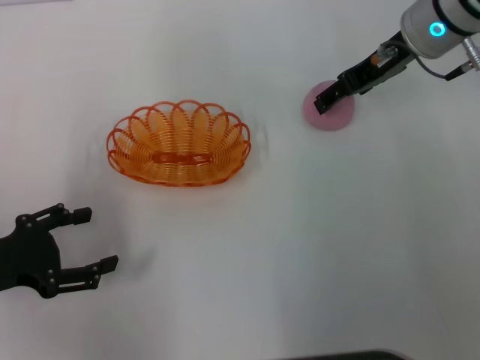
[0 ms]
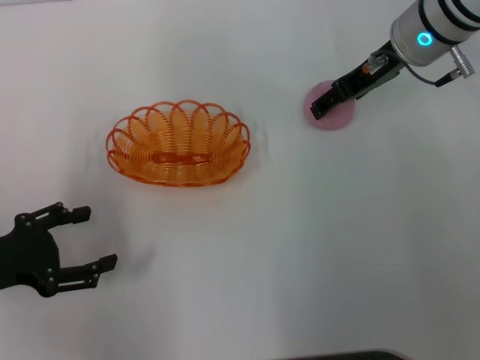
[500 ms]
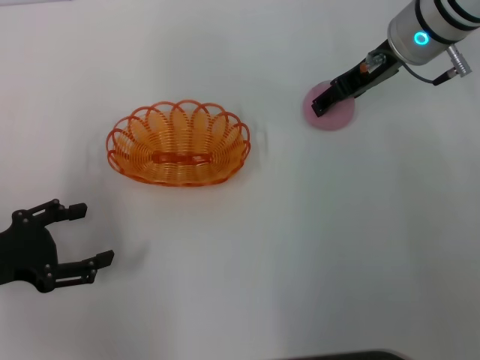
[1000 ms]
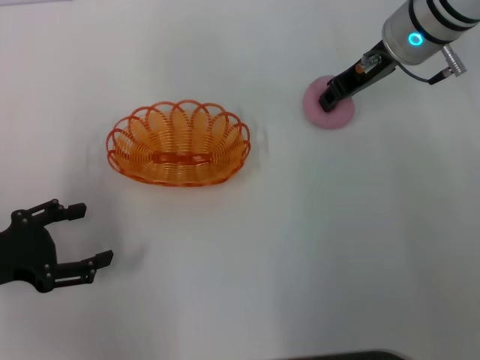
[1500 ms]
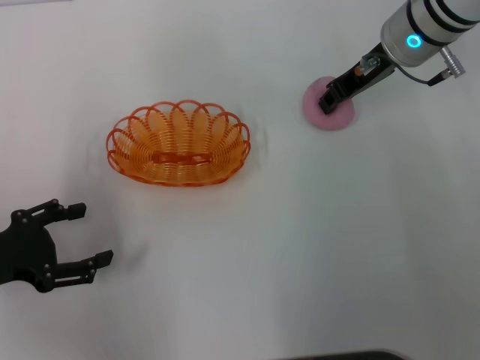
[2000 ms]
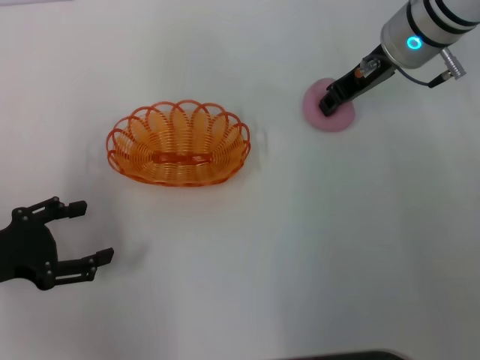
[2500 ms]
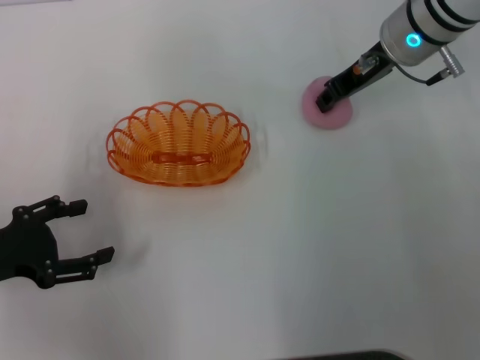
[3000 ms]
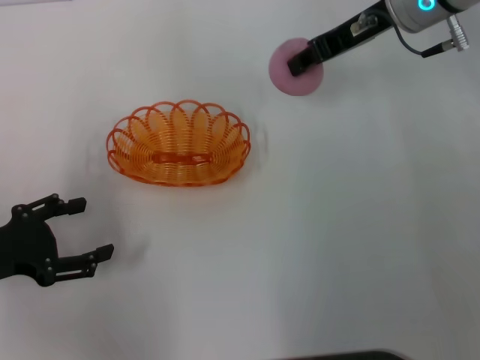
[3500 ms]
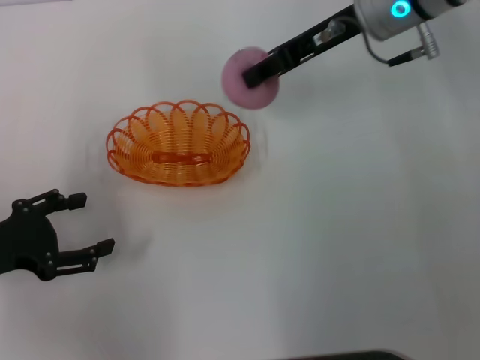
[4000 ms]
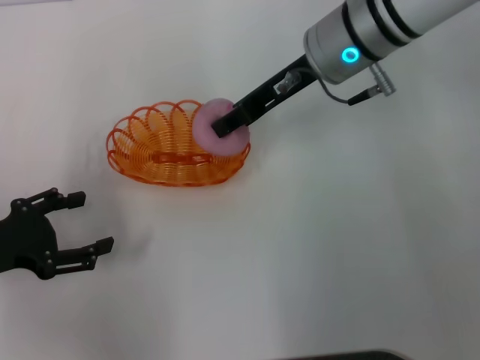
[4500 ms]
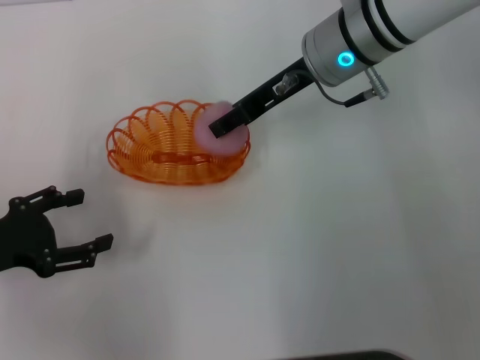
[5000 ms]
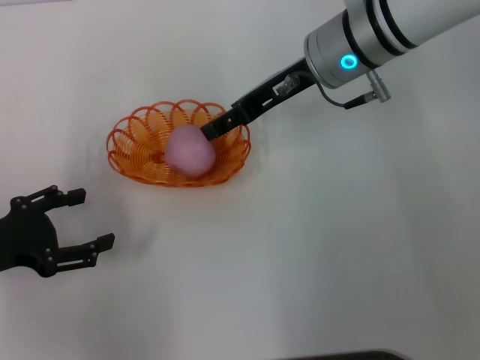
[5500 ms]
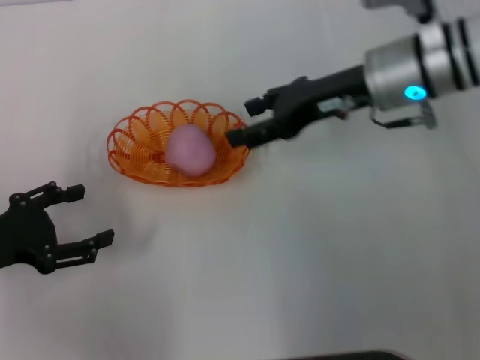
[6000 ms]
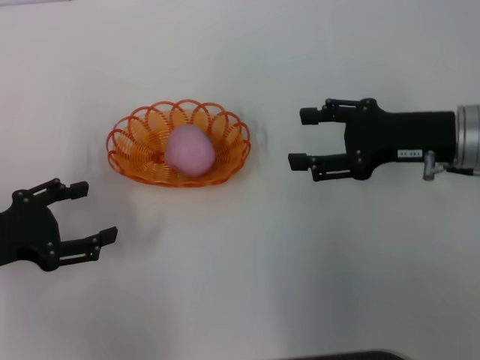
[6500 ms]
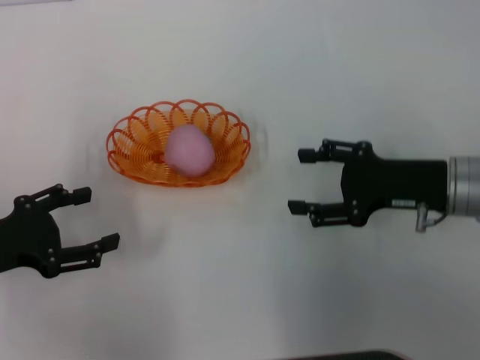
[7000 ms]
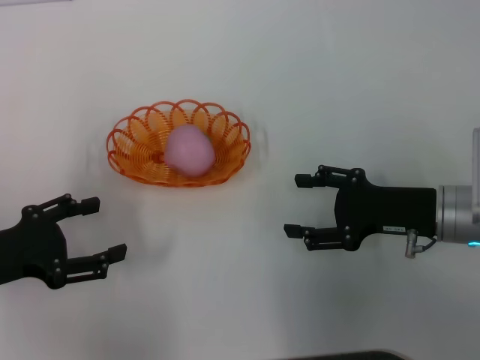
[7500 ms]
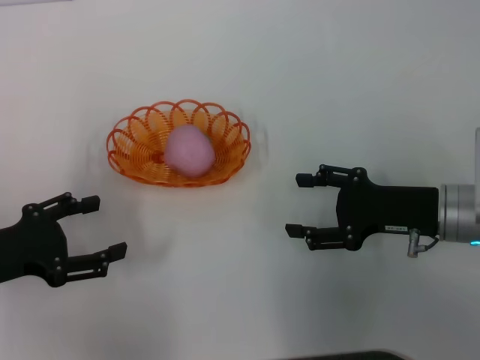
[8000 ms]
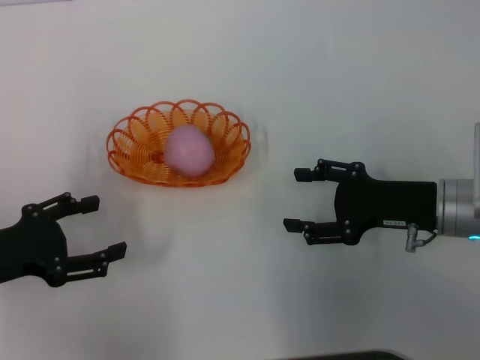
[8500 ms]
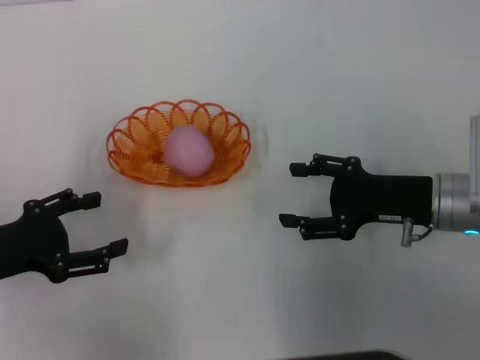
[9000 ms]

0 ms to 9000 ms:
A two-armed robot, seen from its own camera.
Step, 0 ms to 3500 ms: Pick up the peach with the right gripper.
Step, 4000 ms to 5500 ms: Place the peach into the basket with the right gripper.
0 ms to 2000 ms: The right gripper closes.
2000 ms to 4500 ms: The right gripper shifts approximately 5 cm to the left.
4500 ms to 7000 ms: The right gripper is displaced to the right, backward and downward by about 20 cm, and opens up.
7000 ms to 9000 ms: There are only small adjustments of the grippers.

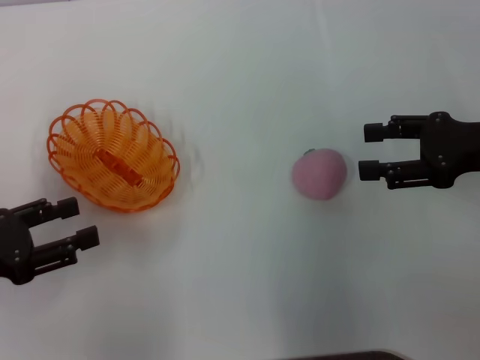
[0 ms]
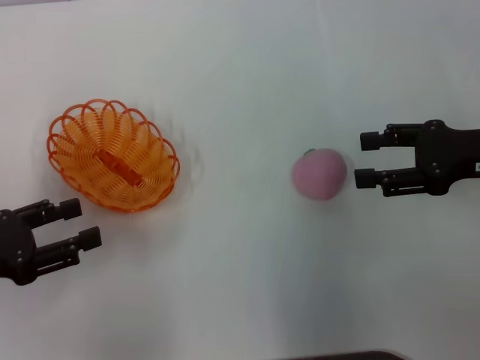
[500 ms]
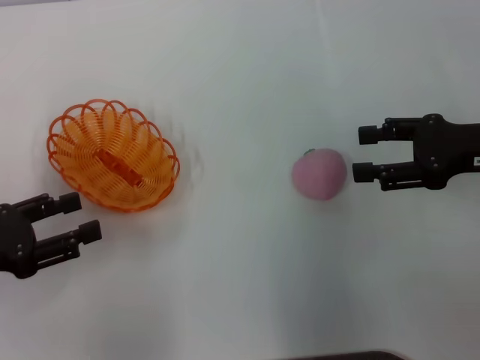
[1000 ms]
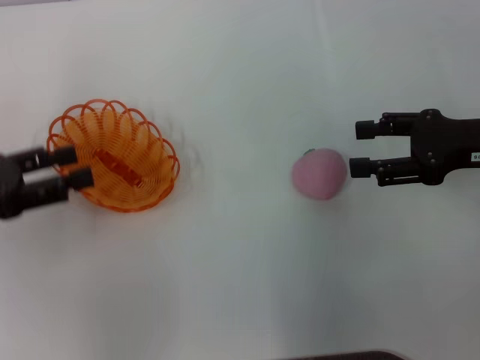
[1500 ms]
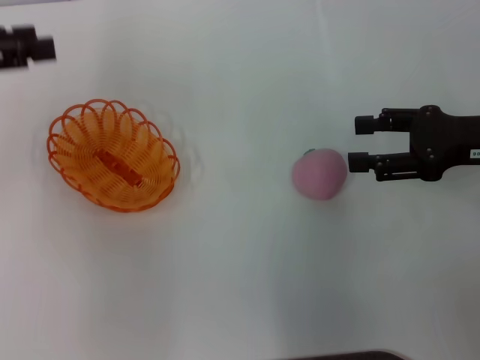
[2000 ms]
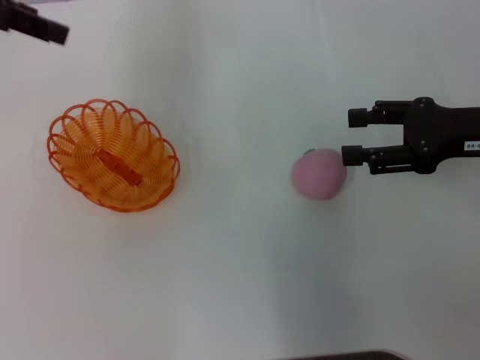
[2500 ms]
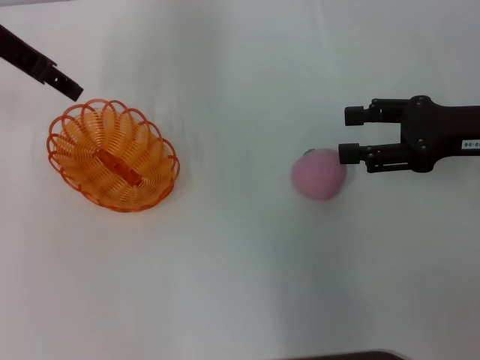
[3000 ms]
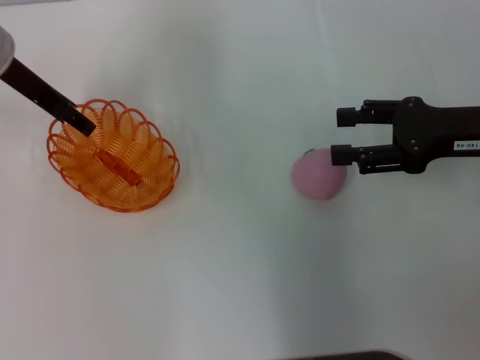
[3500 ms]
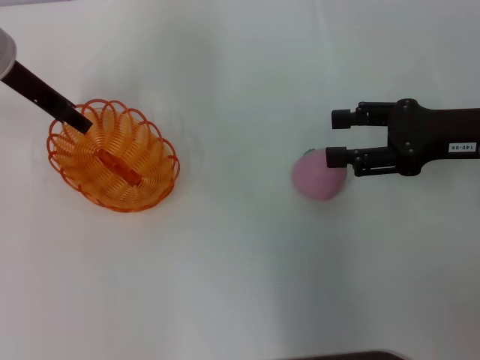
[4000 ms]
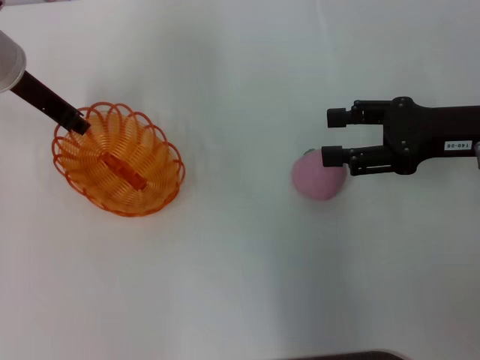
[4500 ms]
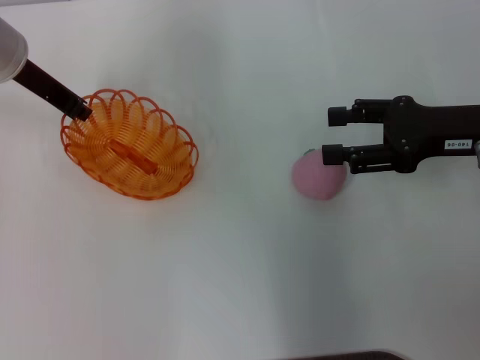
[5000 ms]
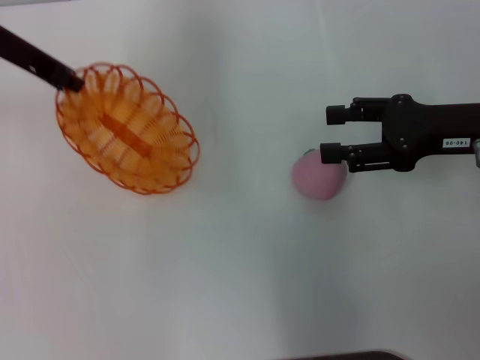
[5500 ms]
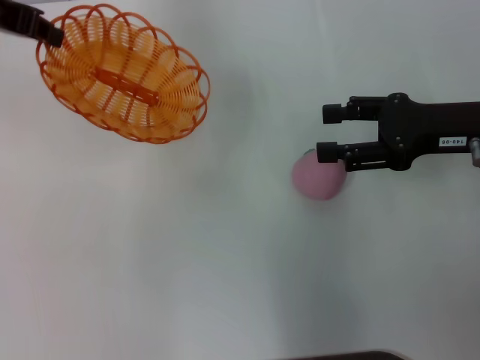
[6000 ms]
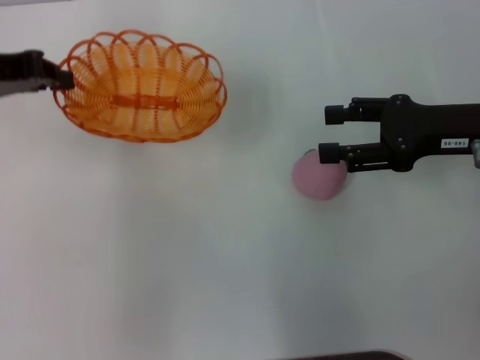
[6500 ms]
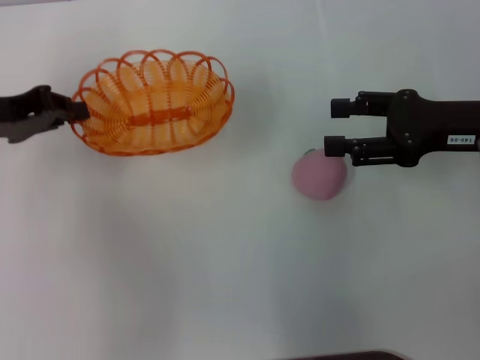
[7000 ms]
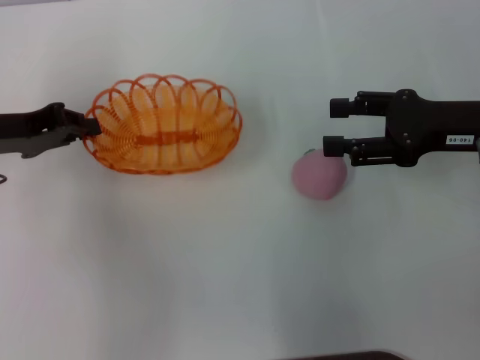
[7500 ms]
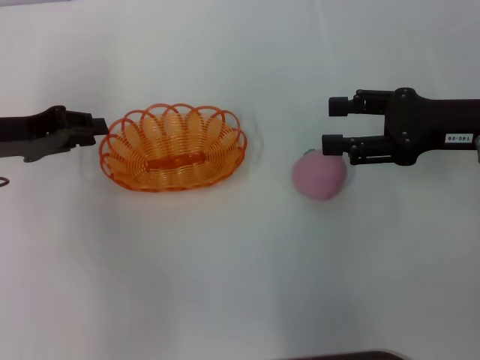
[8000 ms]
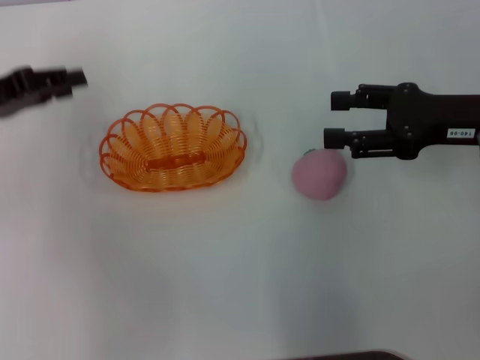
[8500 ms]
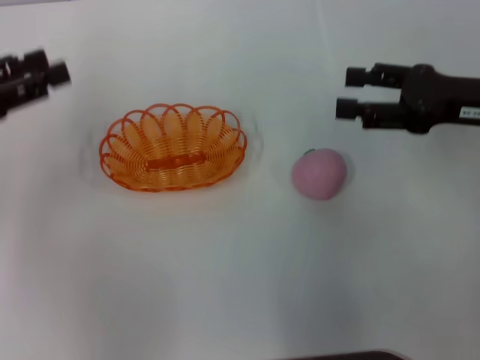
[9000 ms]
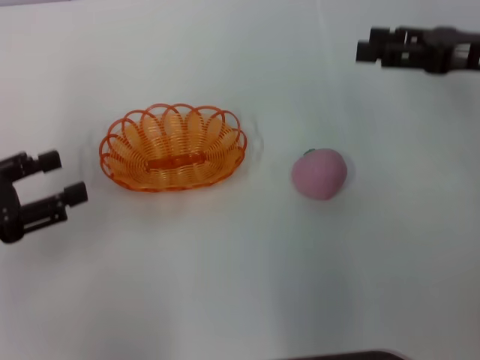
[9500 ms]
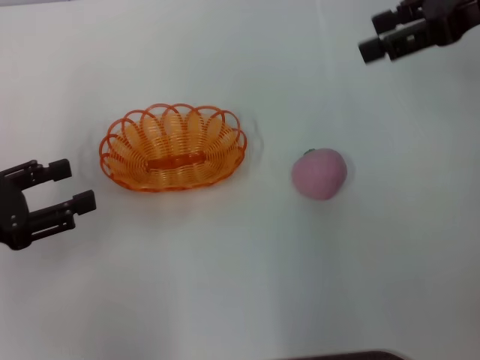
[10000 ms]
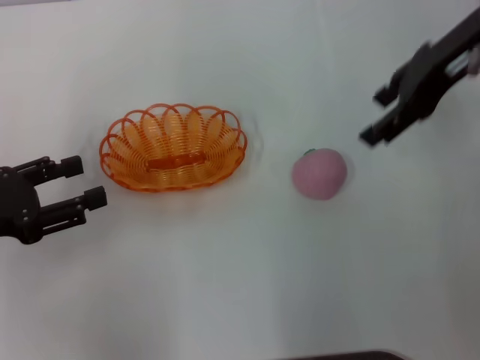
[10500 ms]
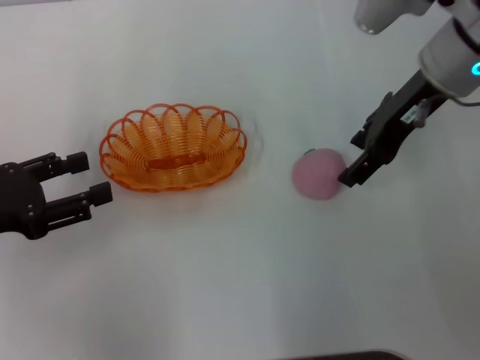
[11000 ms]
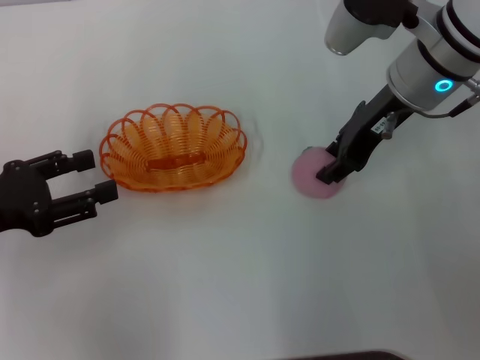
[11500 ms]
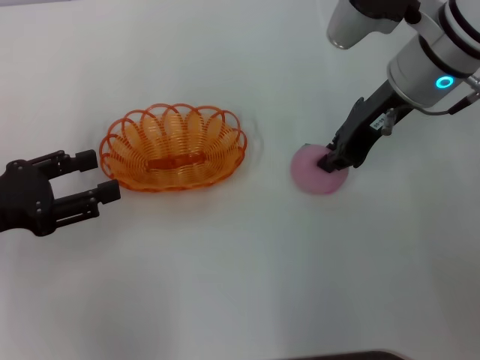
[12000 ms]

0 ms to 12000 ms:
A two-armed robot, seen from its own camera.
Step, 0 ms to 5000 ms: Pick up the basket with the left gripper.
Step, 5500 ms to 8000 ms: Place the basket in the center of view with the left gripper.
0 ms to 2000 ms: The left gripper is displaced upward and forward by about 20 cm.
2000 ms to 4000 ms: The left gripper shifts approximately 15 cm to the right, forward and downward.
4000 ms to 6000 ms: The left gripper heads upward, covering approximately 10 cm, and closes up.
6000 ms to 8000 ms: The left gripper is displaced downward and backward by some 15 cm.
8000 ms to 10000 ms: The right gripper moves upward and forward, about 15 cm. Meanwhile the left gripper is displaced backward by roughly 10 cm, and opens up.
10000 ms to 12000 ms: The right gripper is displaced to the left and downward by roughly 15 cm, and closes its fingers.

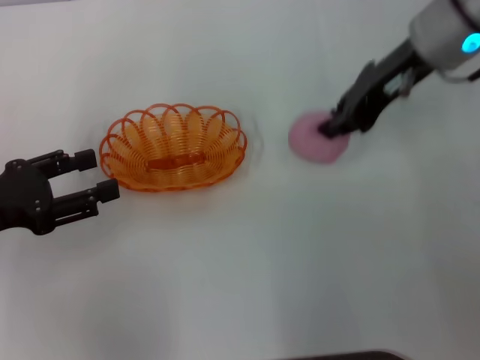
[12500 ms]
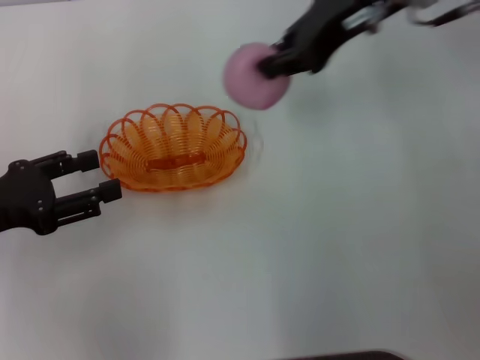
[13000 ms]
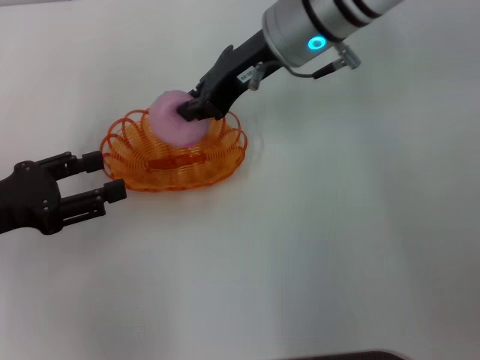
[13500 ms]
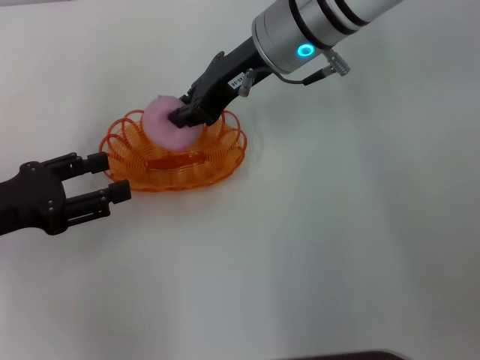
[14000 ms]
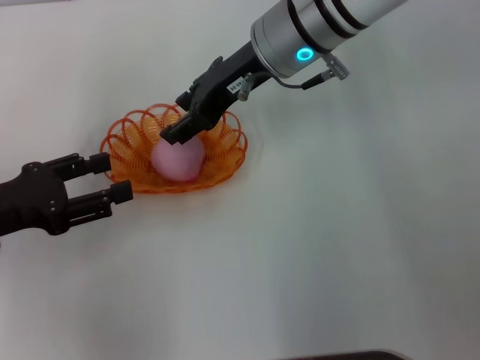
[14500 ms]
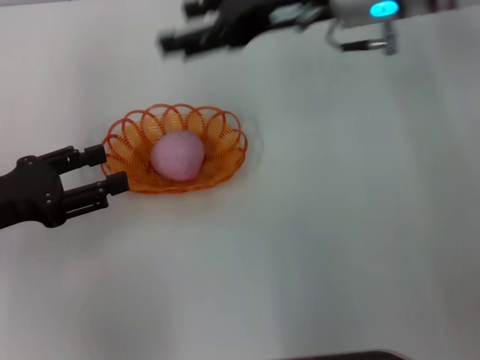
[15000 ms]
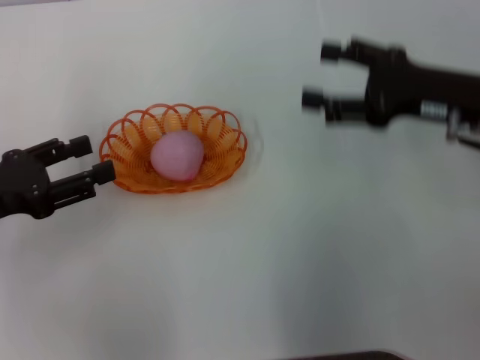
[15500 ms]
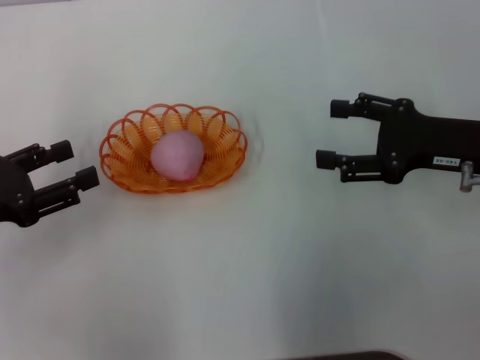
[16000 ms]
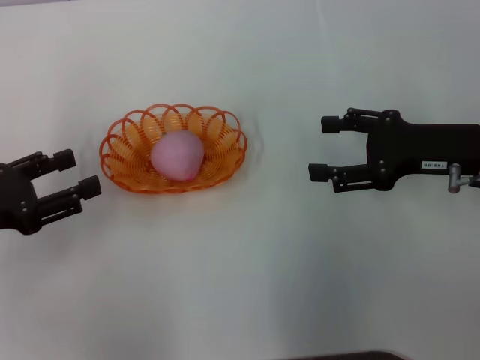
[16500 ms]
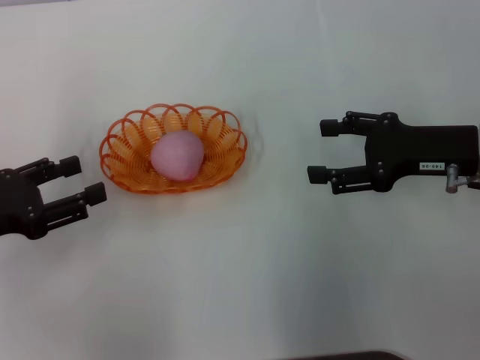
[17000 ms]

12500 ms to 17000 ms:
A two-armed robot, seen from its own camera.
Step, 13000 ms to 14500 ms: Place the peach into the basket with the right gripper.
12500 ms to 14500 ms: The right gripper travels to the left by approximately 10 cm, and opens.
14500 ms to 17000 ms: The right gripper travels to the right, backward and downward by approximately 25 cm, and opens up.
